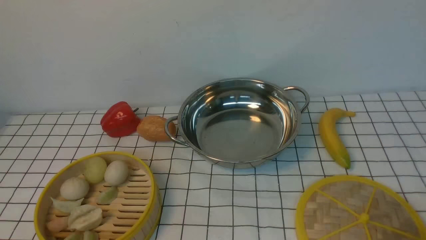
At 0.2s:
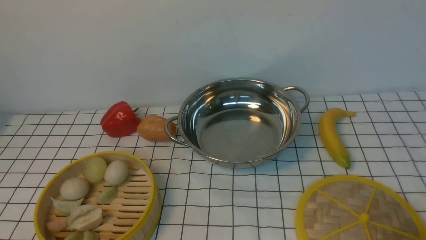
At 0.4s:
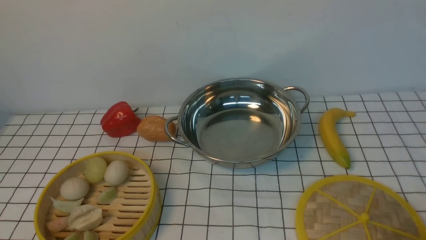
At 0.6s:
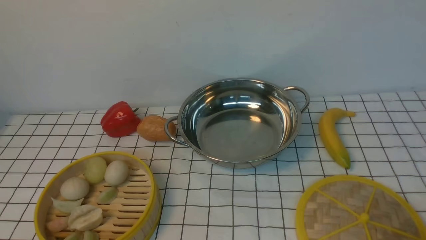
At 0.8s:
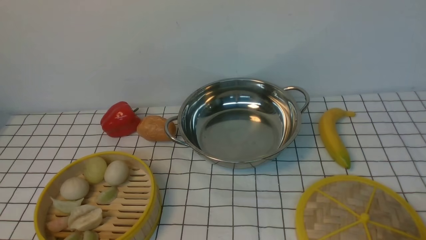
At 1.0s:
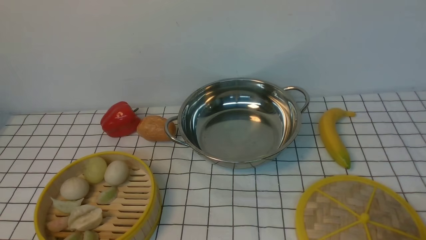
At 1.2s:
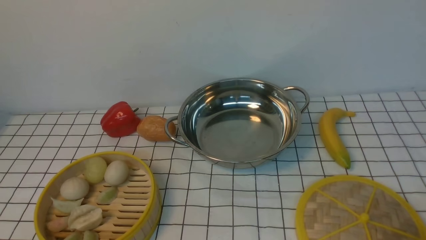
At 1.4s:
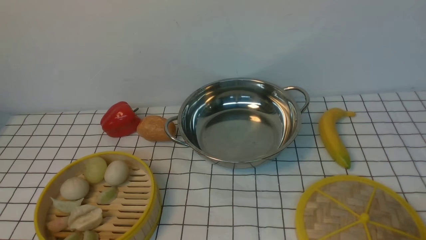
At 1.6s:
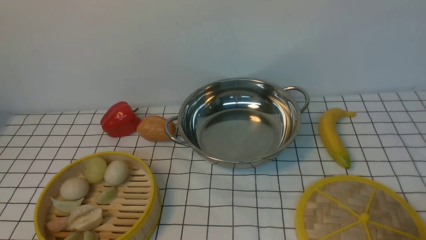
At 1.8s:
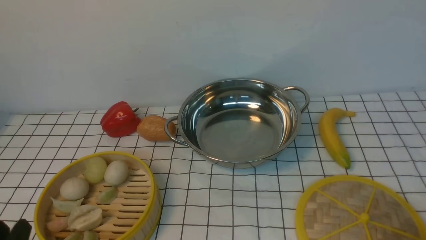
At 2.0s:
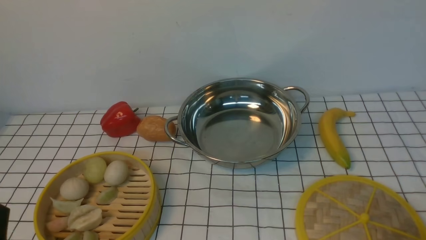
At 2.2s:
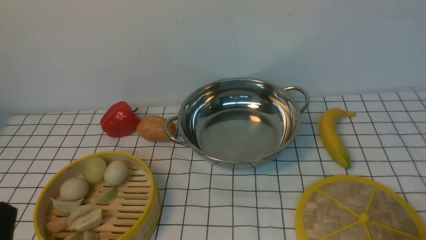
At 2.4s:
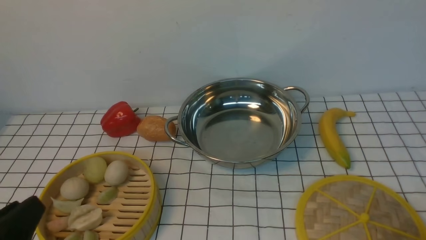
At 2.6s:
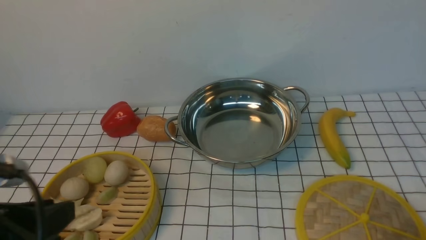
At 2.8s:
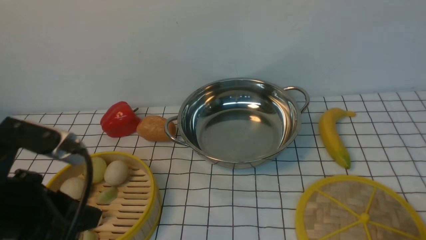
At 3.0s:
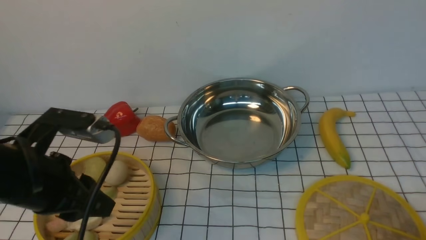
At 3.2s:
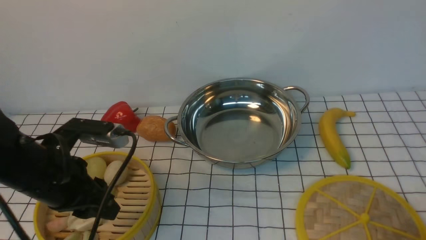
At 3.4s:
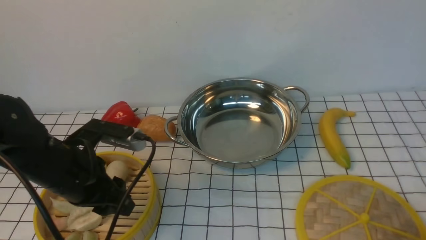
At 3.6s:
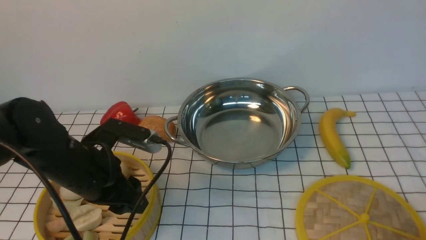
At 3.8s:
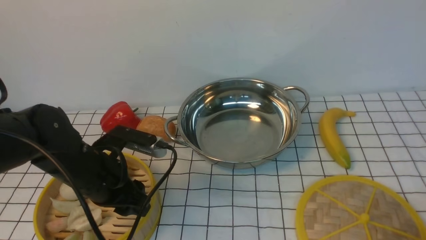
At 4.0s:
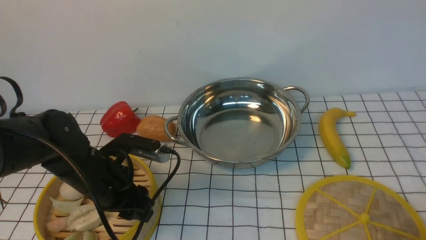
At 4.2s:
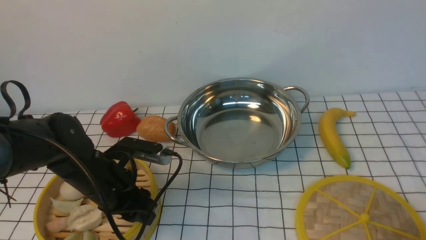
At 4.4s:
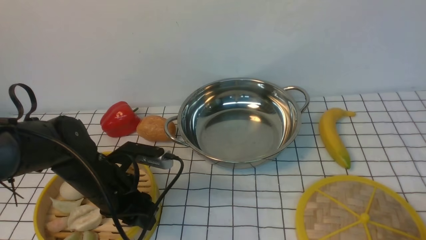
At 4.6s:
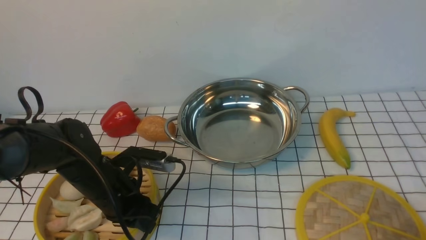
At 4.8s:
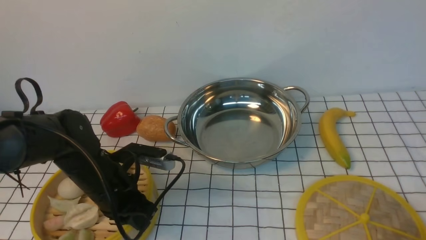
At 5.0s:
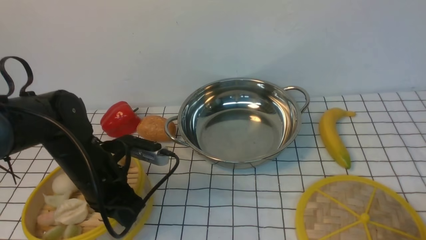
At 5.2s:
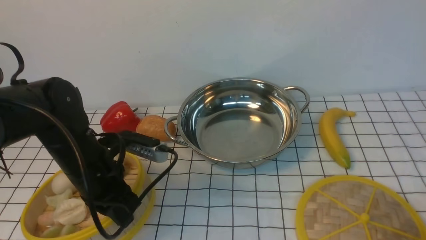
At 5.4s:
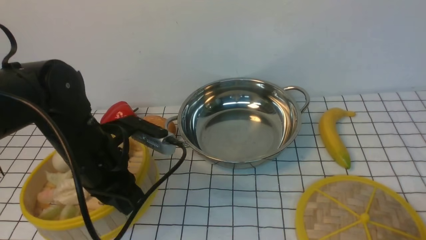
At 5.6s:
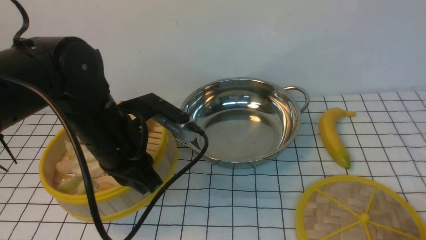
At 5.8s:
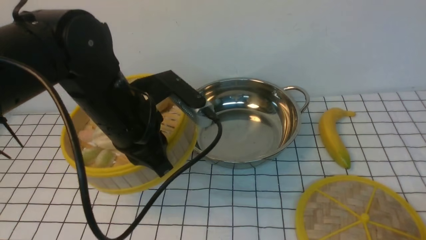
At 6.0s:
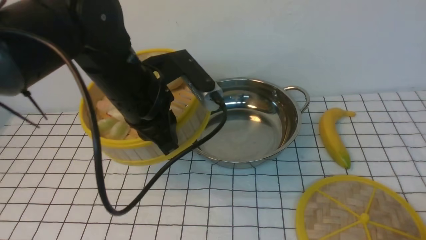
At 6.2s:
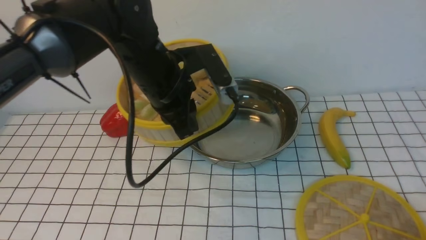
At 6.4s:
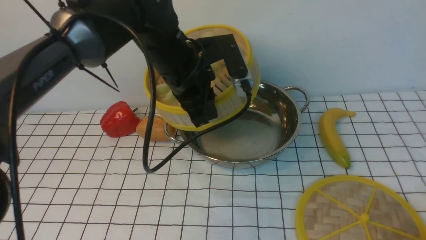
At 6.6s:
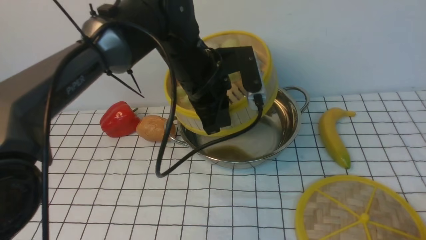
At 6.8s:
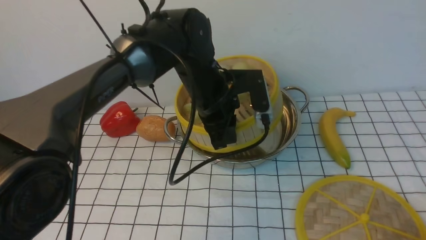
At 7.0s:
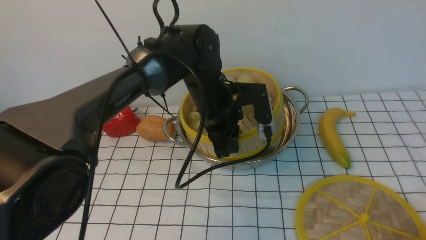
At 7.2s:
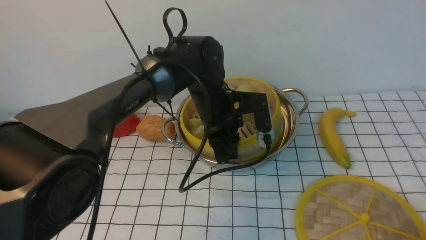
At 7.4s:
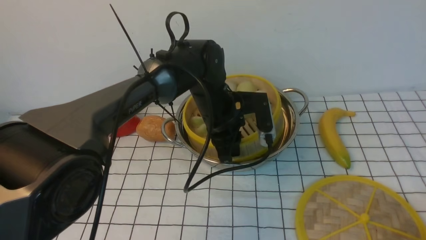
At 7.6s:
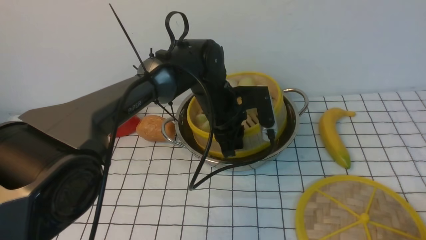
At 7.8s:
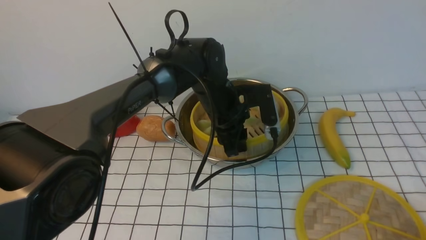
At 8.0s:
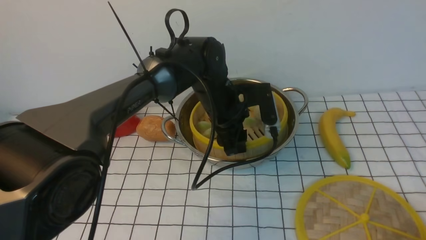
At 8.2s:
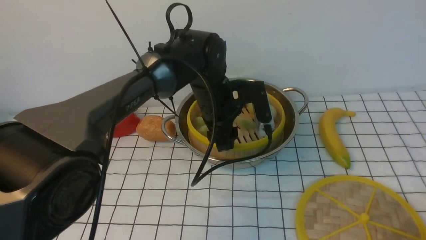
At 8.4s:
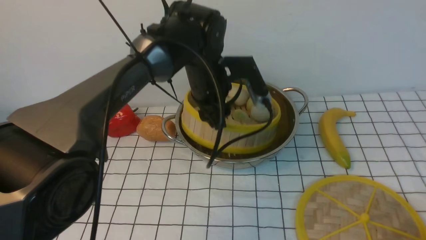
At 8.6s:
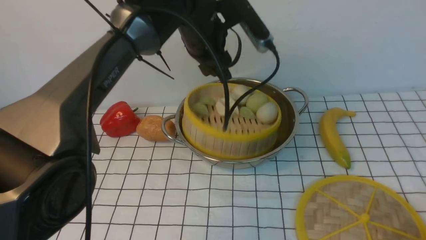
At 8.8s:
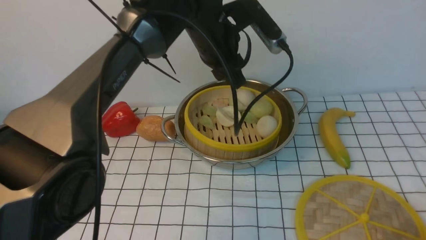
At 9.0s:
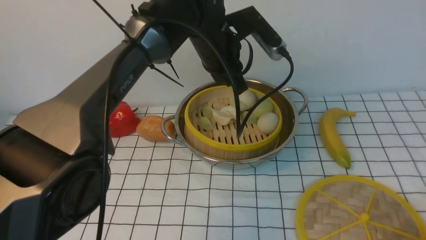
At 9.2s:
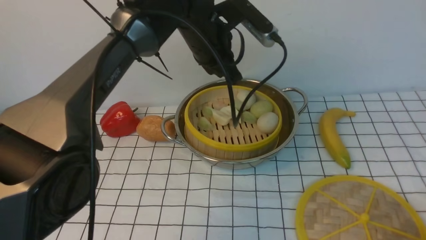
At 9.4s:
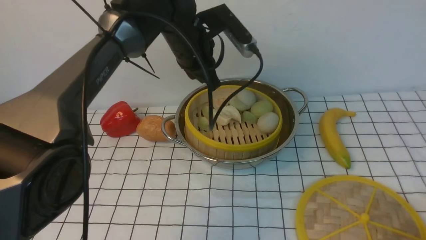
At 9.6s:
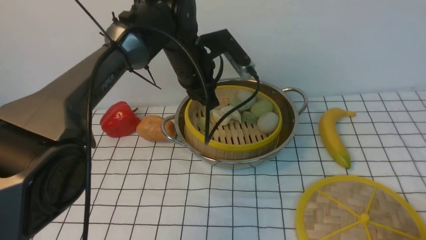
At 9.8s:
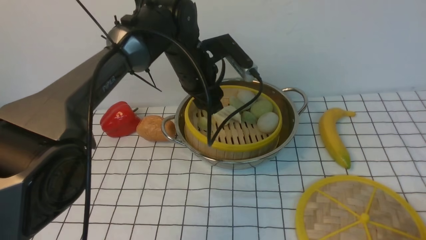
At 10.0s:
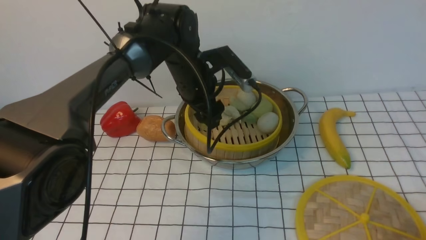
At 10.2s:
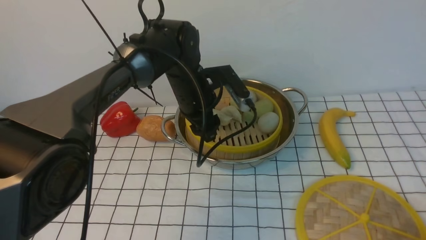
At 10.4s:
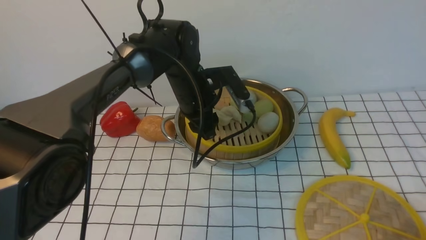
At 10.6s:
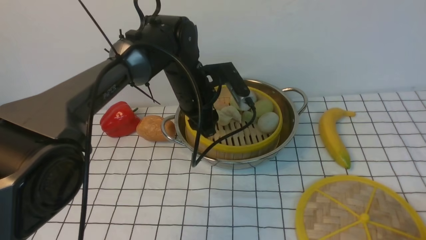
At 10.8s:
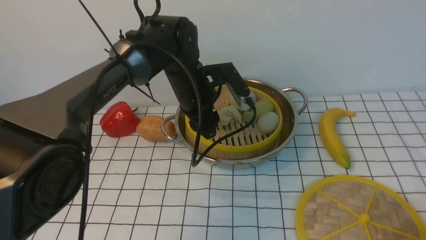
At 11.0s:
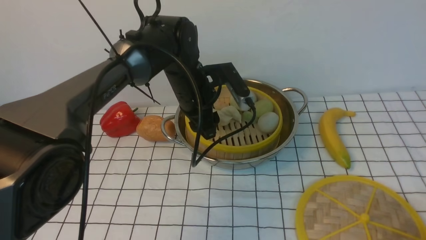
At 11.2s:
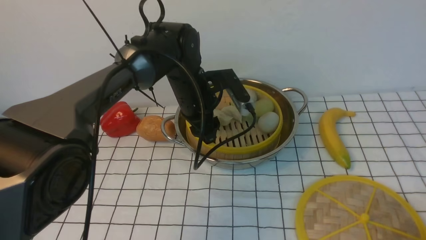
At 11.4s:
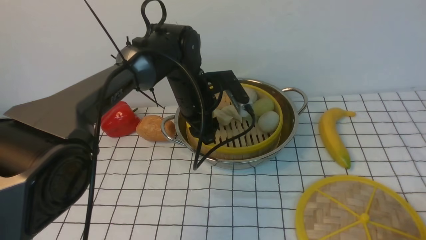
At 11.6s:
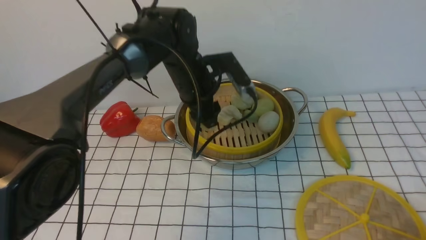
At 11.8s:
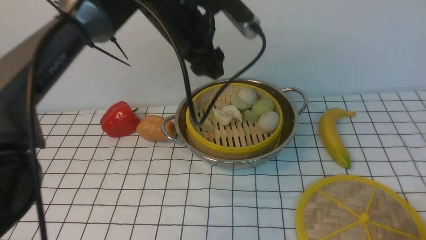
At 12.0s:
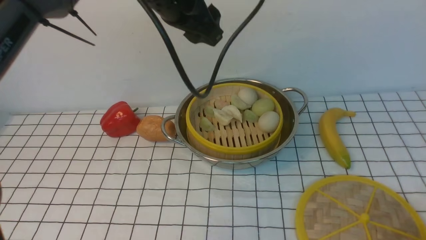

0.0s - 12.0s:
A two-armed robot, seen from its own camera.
Task of the whole recording: place the steamer in the pot on the white tablecloth, and put the lid on the steamer.
Step, 0.0s - 5.4s: use the left arm to lift the steamer closest to it.
Step, 5.8s - 11.6s: use the left arm to put the steamer into the iron steamer pot in the middle.
0.0s - 1.6s: Both grippers stay about where they are.
1.6s - 3.0s: The left gripper moves forward and upward, approximately 20 cm.
3.0s - 4.4s: The left gripper heads downward and forward, covering roughly 15 cm.
4.4s - 6.0s: The left gripper moves upward and to the right, about 15 cm, and closes up.
6.0s - 7.6s: The left gripper travels downward, to the right and forward by roughly 15 cm.
7.6s - 9.0s: The left gripper goes some 10 cm upward, and opens, then closes once more.
9.0s - 10.4s: The left gripper moves downward, approximately 10 cm, and opens.
10.4s - 12.0s: The left gripper shifts some 20 cm upward.

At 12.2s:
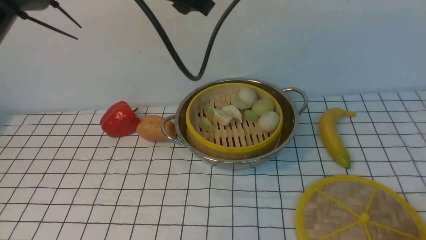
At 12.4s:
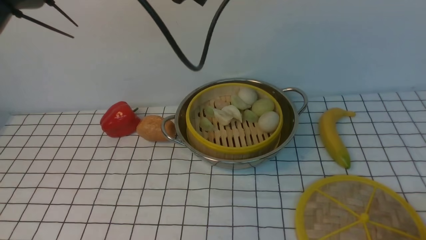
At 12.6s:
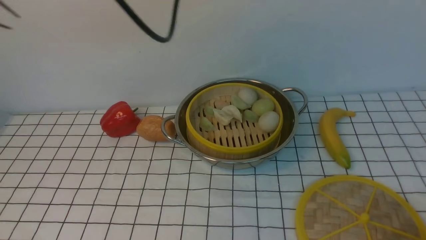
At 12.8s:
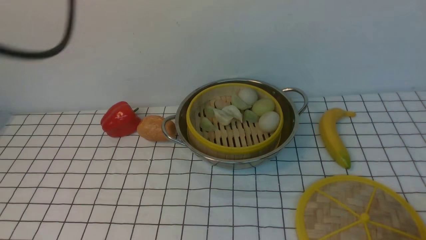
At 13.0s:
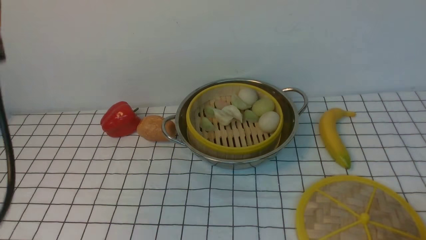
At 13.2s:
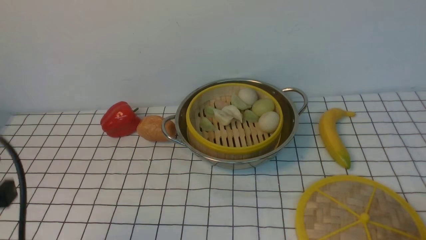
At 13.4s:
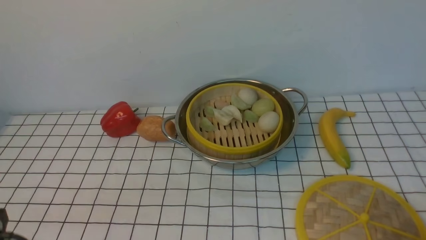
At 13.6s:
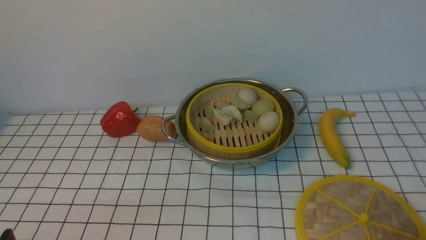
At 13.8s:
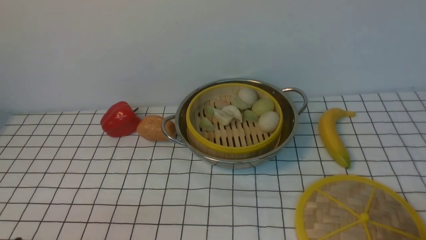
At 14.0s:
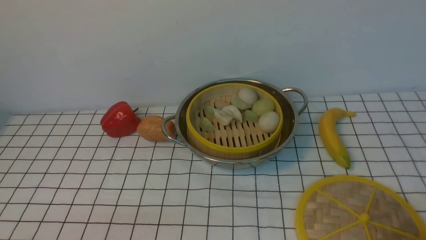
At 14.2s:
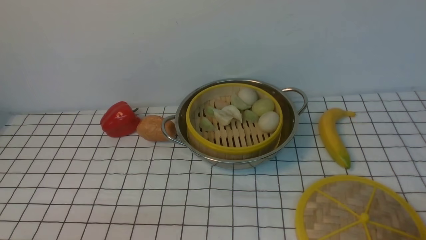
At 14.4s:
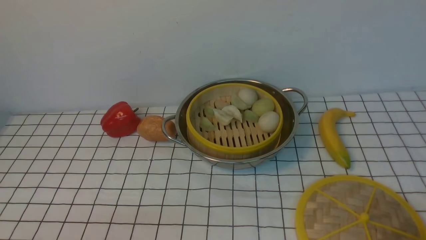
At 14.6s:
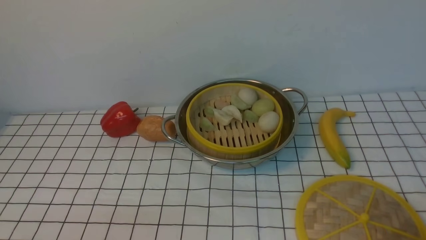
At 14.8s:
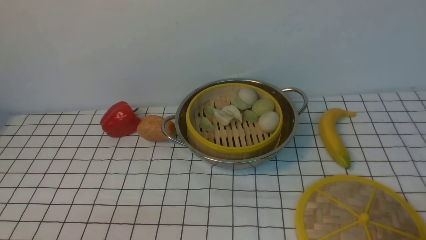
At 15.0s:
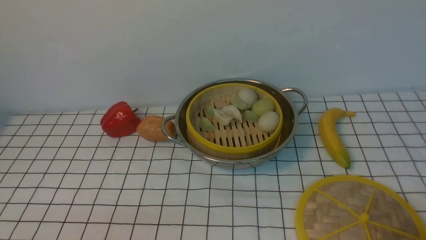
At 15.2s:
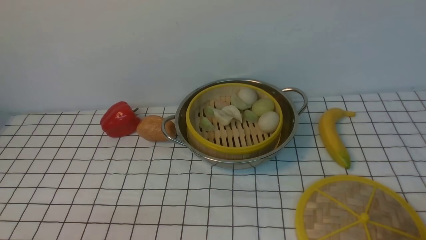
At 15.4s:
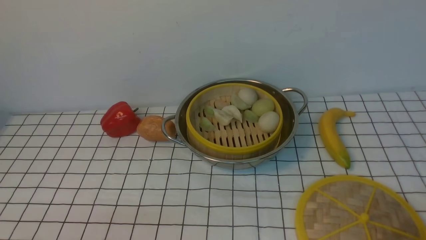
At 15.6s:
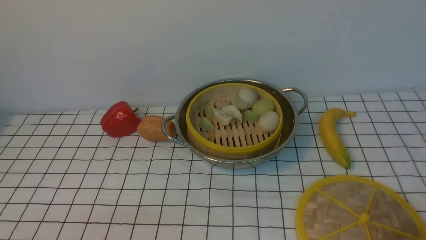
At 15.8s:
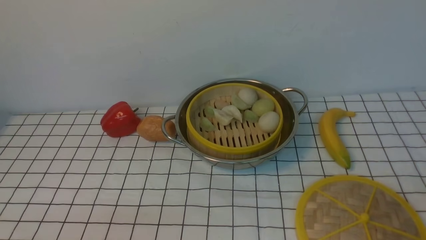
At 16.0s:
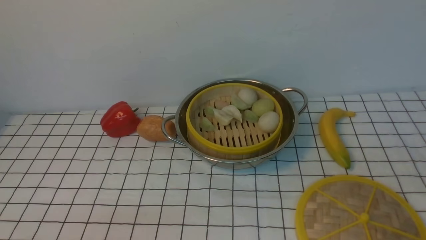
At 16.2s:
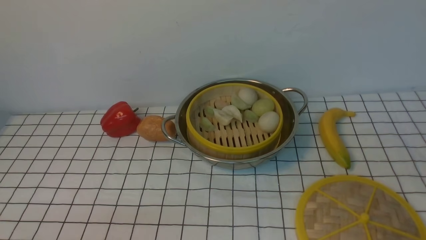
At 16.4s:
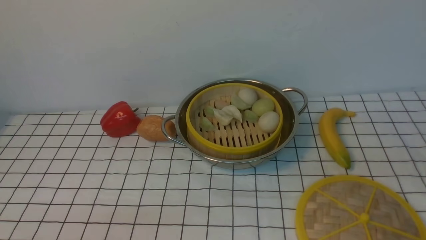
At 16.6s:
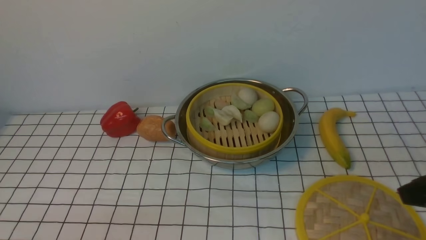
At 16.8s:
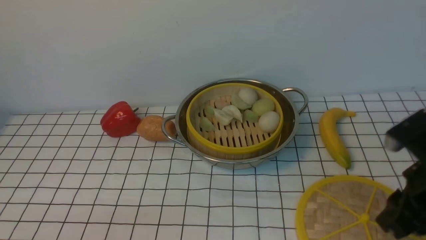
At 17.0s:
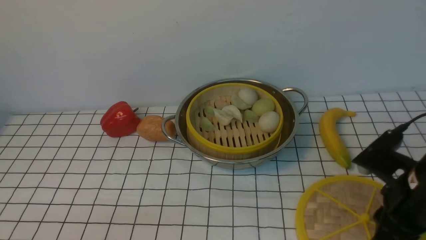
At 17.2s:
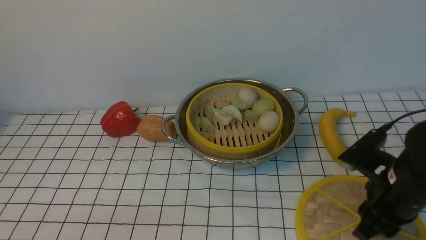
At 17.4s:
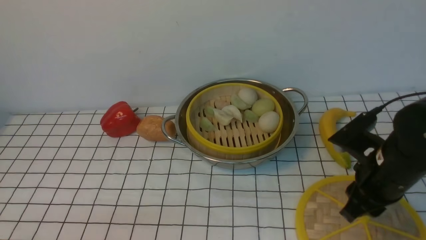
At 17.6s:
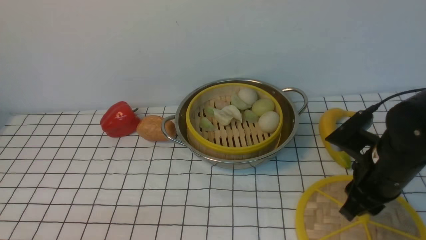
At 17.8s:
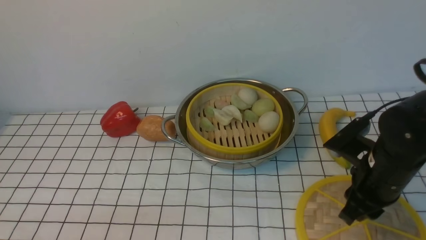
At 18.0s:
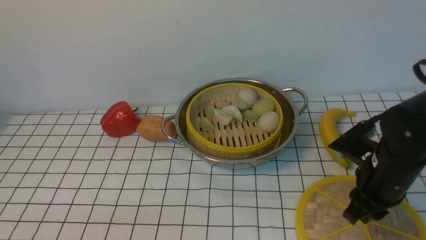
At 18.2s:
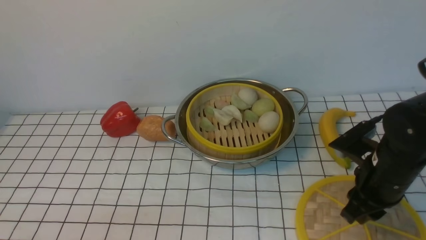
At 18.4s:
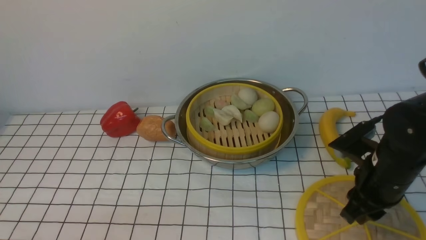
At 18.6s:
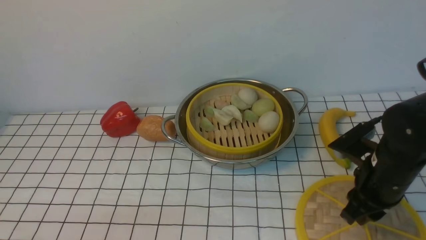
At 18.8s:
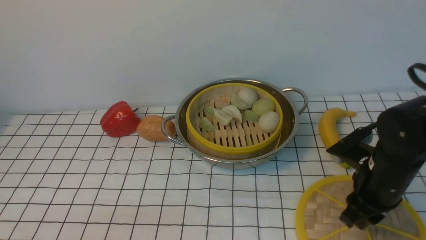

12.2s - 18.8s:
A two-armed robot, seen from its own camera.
Task of the whole recording: place the steamer in the pot on the white tablecloth, and put the lid on the steamer.
12.2s - 13.8s: The left gripper travels backward, downward and to the left by some 50 cm.
13.8s - 15.4s: Both grippers stay put.
15.4s - 17.2s: The right gripper shifts some 20 cm forward and to the left.
17.2s - 18.8s: The grippers make only small movements.
